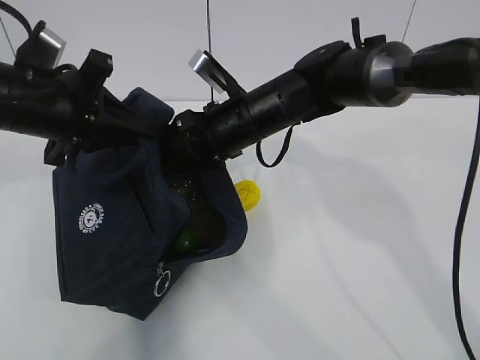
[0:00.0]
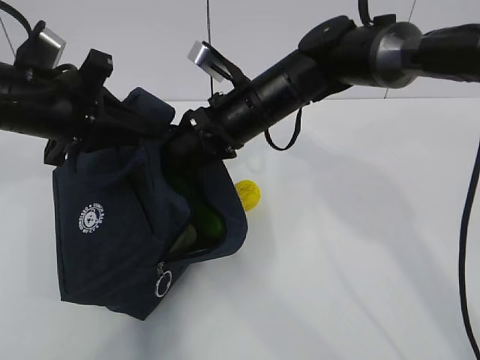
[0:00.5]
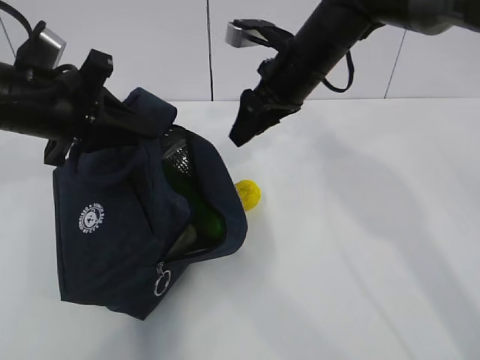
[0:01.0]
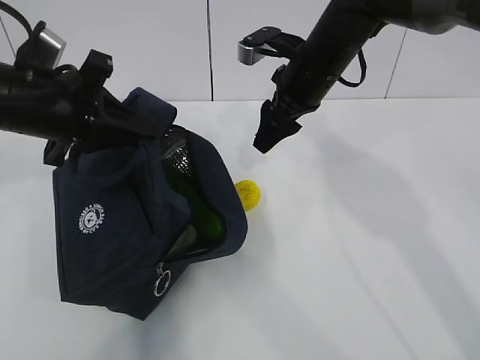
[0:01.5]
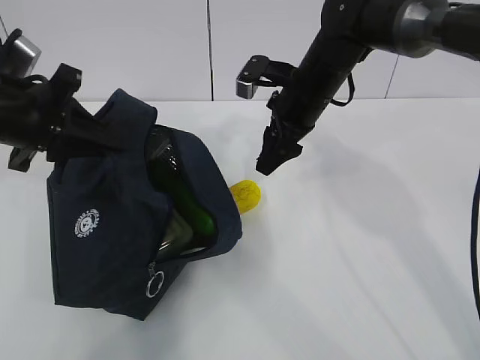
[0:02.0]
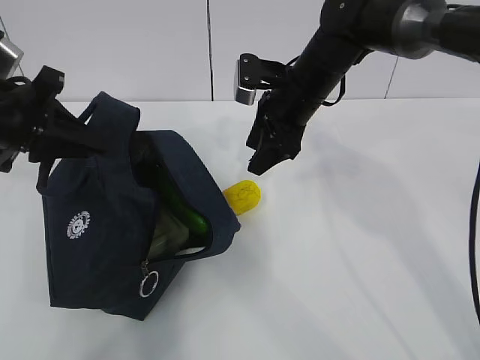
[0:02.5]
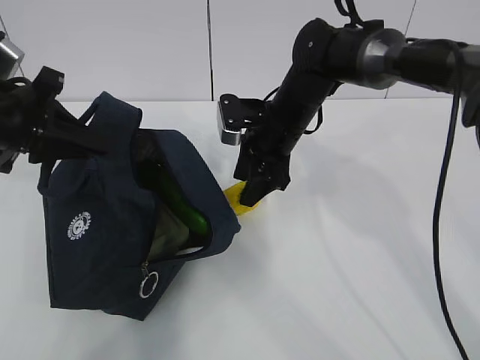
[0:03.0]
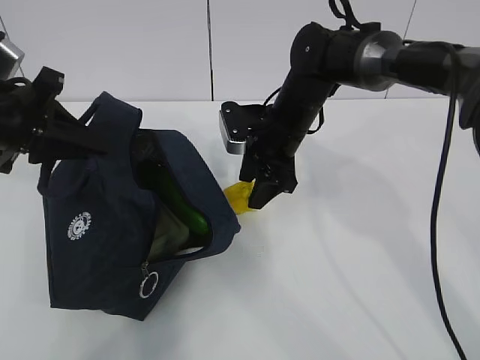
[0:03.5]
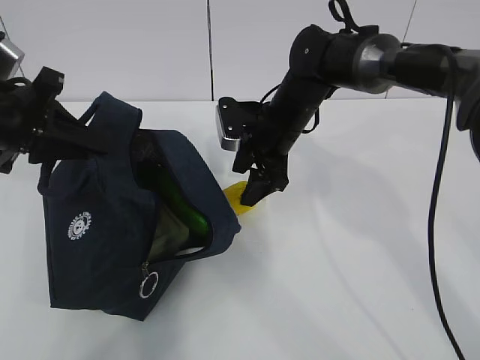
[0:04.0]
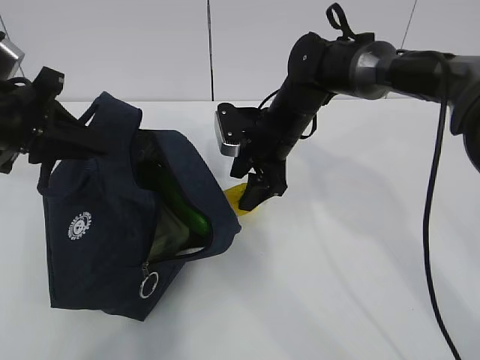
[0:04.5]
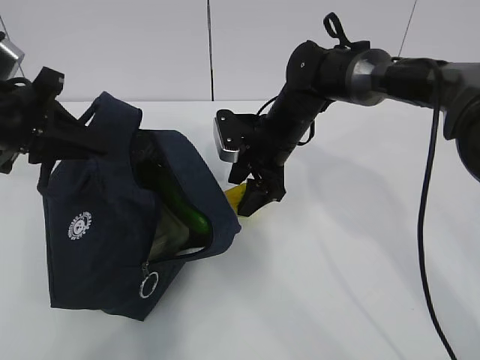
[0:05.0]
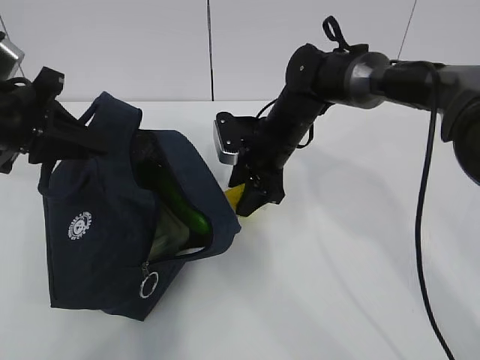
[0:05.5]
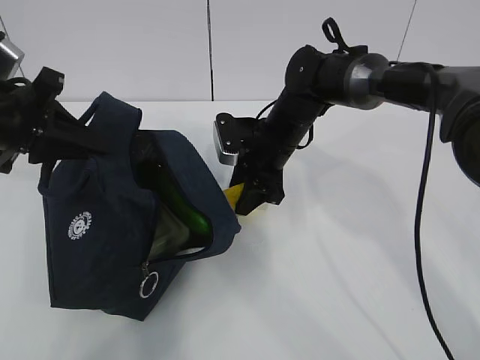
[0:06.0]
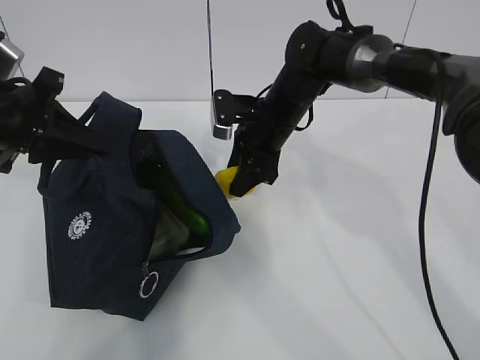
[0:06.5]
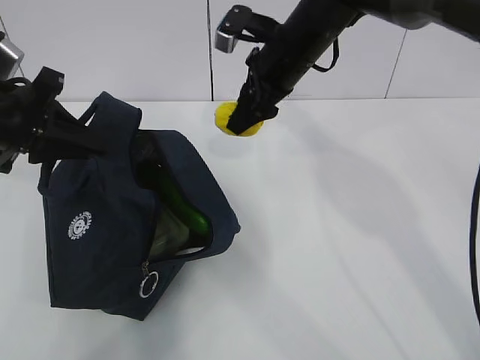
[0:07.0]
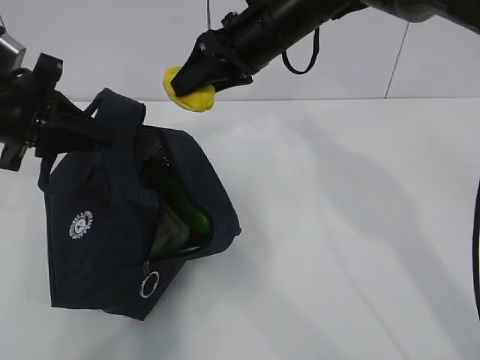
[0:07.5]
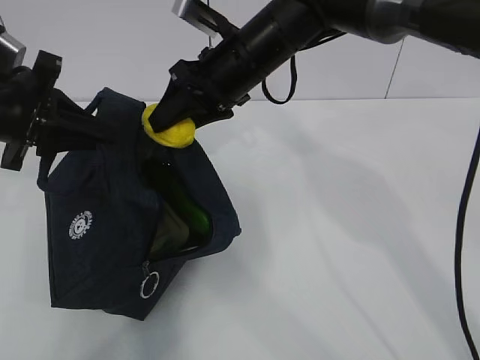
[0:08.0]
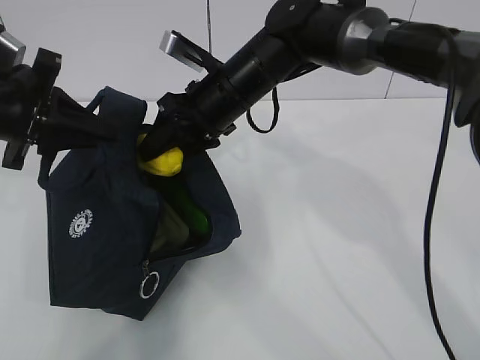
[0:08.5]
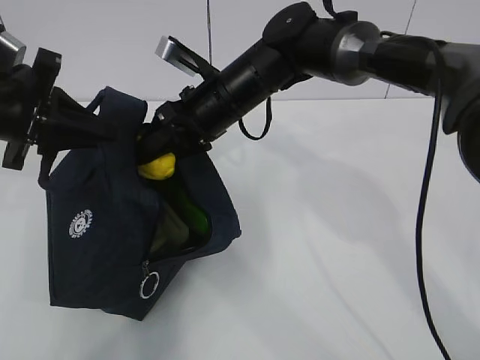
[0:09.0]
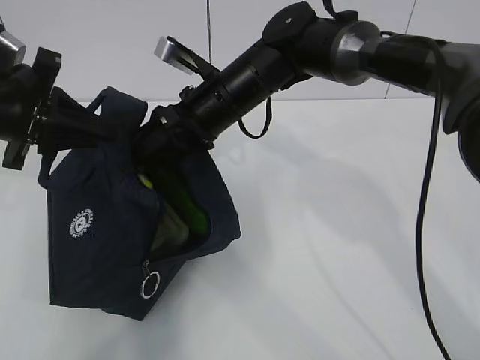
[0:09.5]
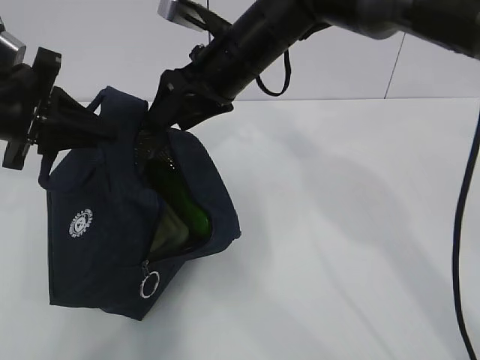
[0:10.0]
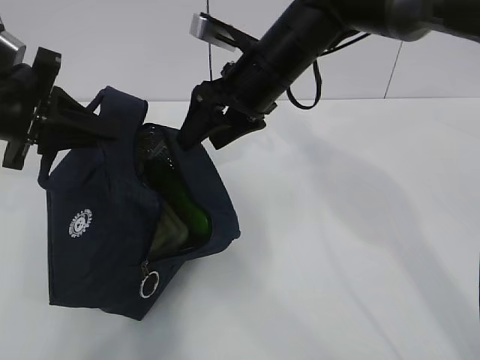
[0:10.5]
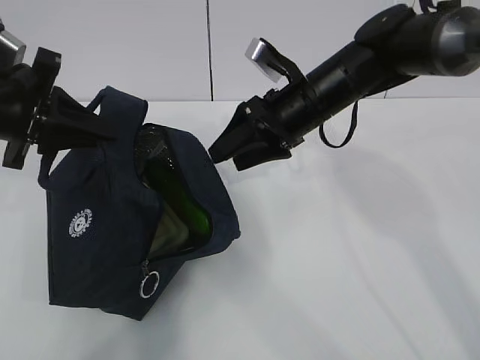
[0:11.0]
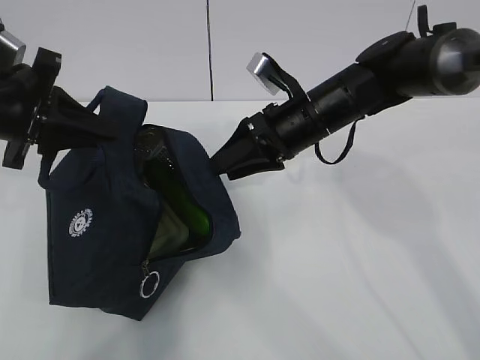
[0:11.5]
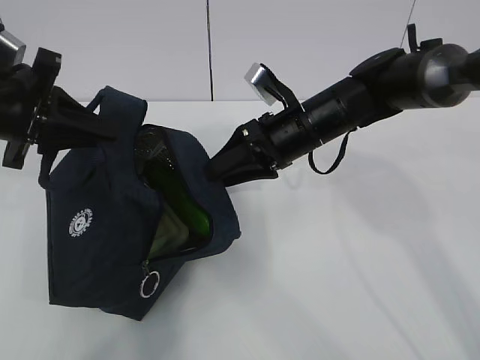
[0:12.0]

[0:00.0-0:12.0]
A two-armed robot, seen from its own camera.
Step, 0.0 to 2.0 s: Secure the lunch bag with your left hand.
Step, 2.5 to 5.0 s: Grab the lunch bag with your right hand.
Step, 5.5 to 9.5 s: Move the lunch bag to the right.
0.0 to 2.0 s: The right gripper travels to the right by some 10 cm.
2.0 to 4.0 s: The right gripper changes place by some 5 cm.
4.0 to 6.0 s: There are only small adjustments of the grippers.
6.0 to 8.0 s: The right gripper goes approximately 15 cm upward.
8.0 to 10.0 s: The grippers stay close to where they were, moving slightly.
10.0 to 12.0 s: The right gripper goes about 10 cm downward and to the right.

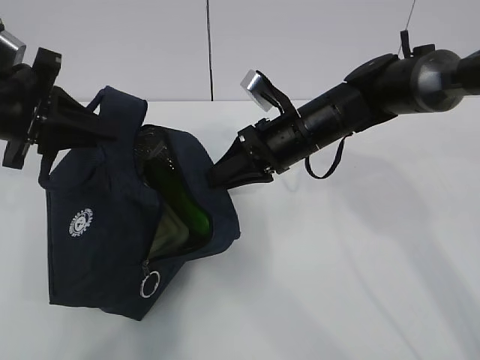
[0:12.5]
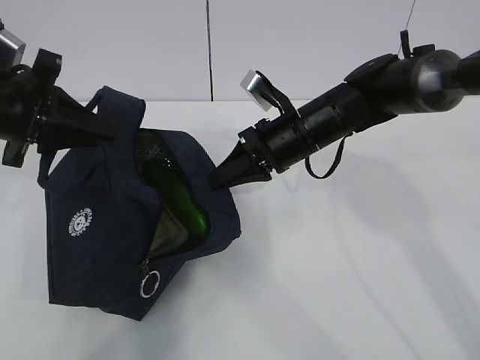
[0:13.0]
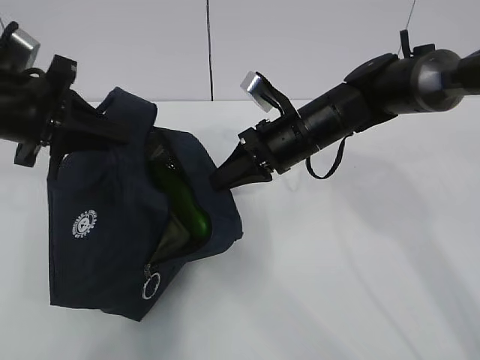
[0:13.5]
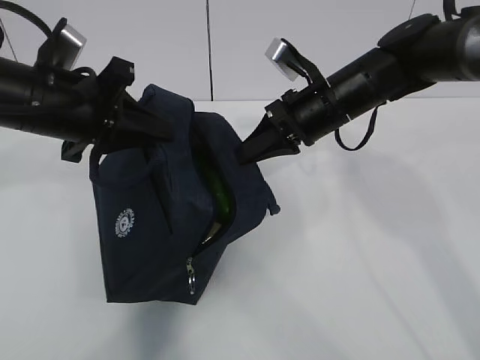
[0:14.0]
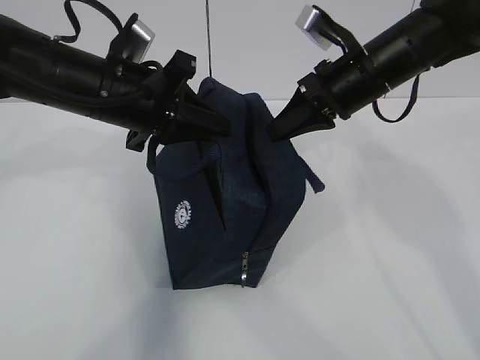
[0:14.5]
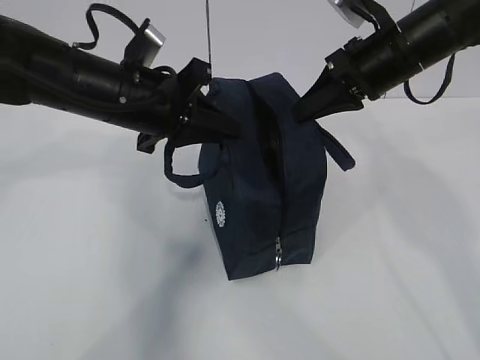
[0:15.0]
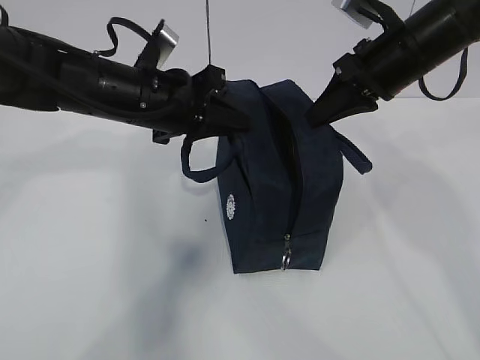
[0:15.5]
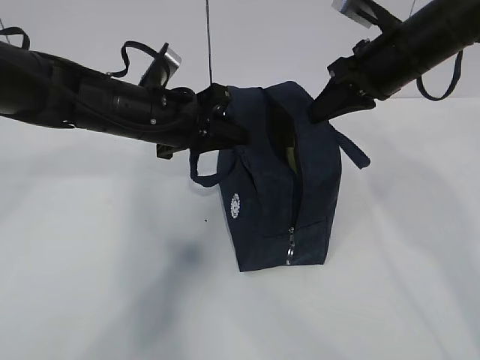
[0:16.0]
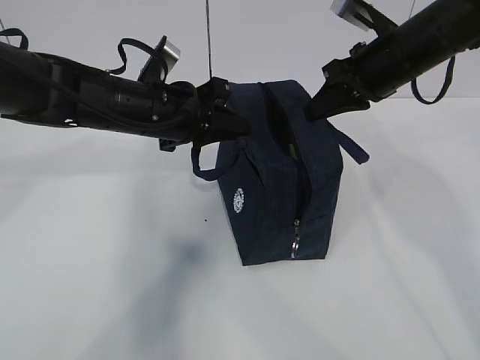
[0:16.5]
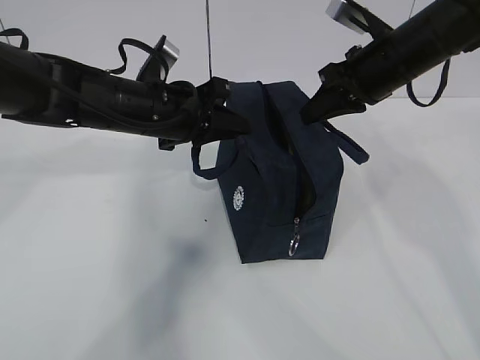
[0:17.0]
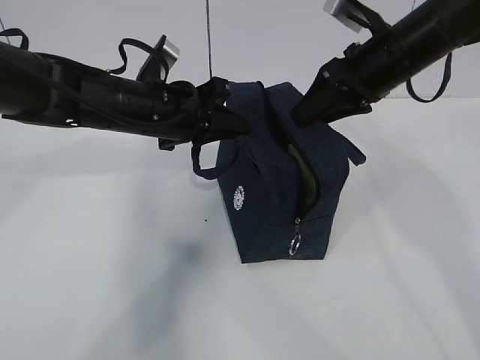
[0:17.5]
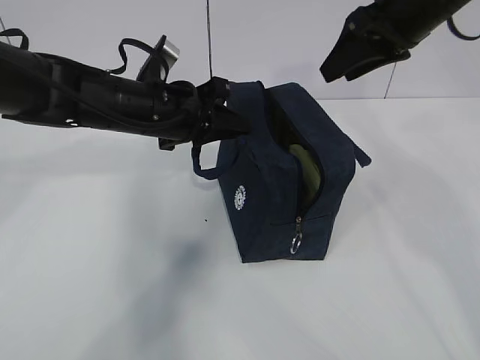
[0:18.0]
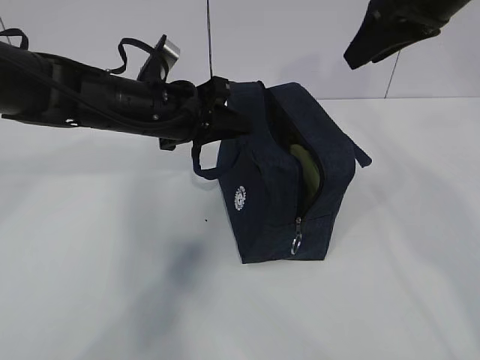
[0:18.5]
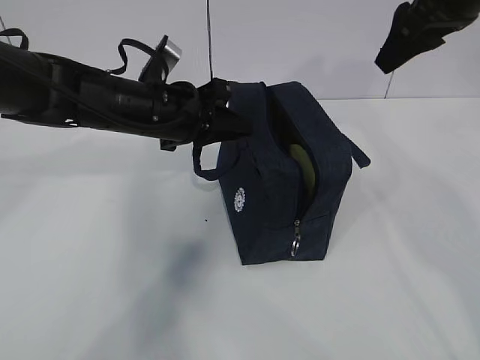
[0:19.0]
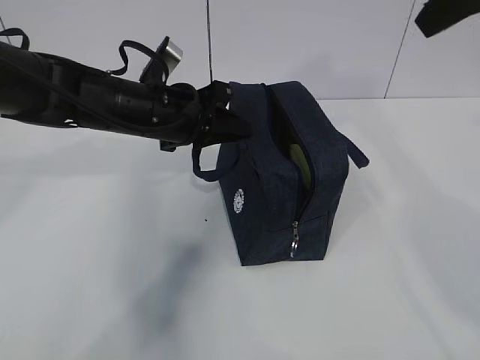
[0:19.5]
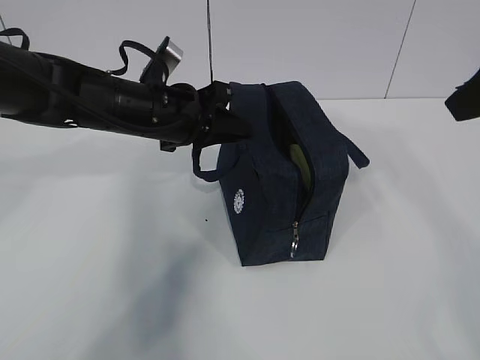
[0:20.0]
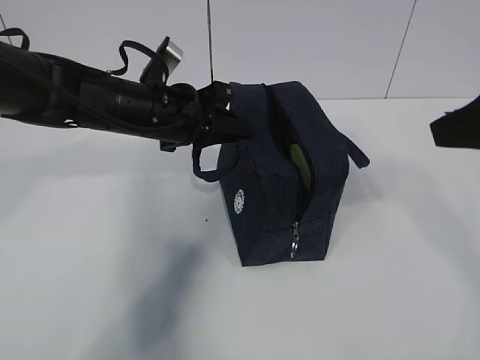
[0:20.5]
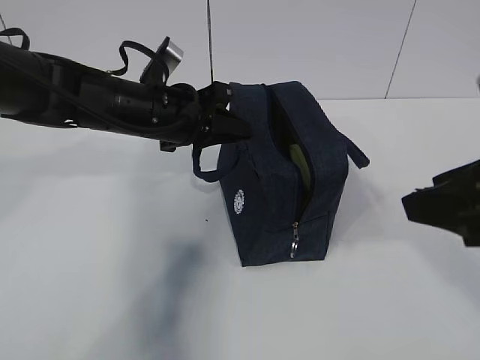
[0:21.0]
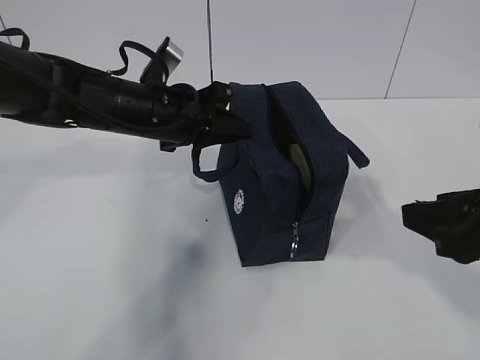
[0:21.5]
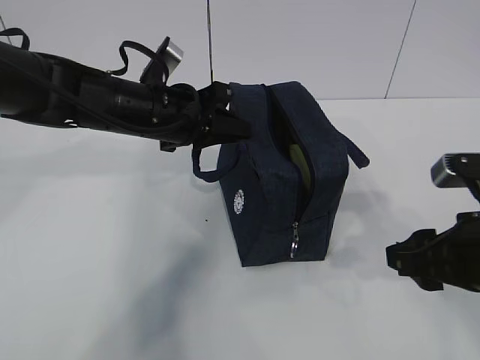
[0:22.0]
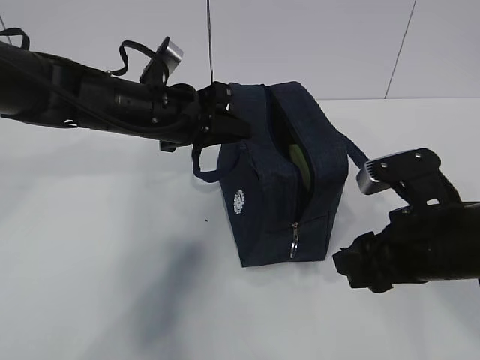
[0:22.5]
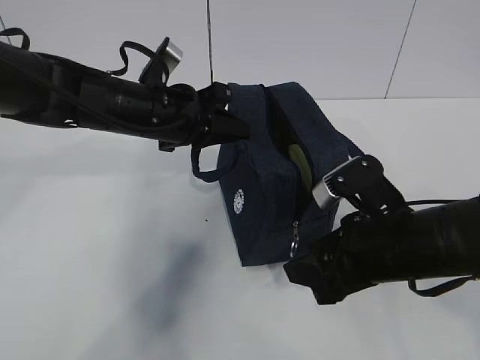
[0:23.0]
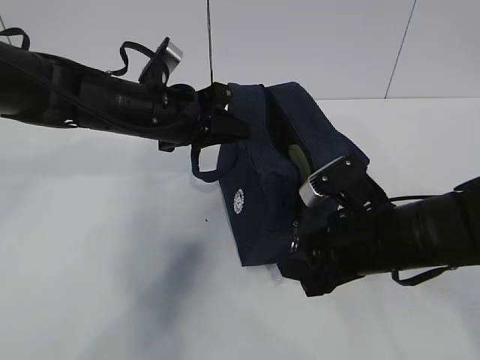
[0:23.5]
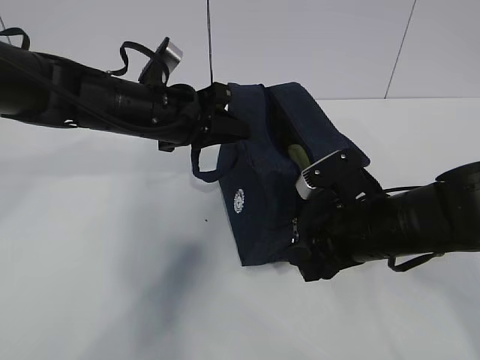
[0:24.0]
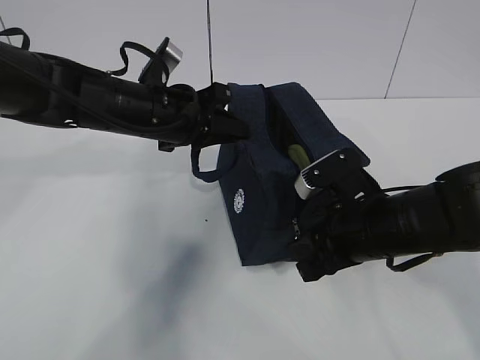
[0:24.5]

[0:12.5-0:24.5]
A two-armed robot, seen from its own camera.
12.5 to 14.5 s: The left gripper moves to the right, about 10 cm; the right gripper moves upward and to the right, about 10 cm, and closes.
14.5 to 16.5 s: The left gripper moves some 5 cm.
16.5 to 18.5 s: The right gripper is displaced upward by about 10 cm, and opens.
18.5 to 20.5 s: The right gripper moves backward, about 15 cm.
20.5 to 22.5 s: The right gripper goes about 15 cm downward.
22.5 to 24.5 s: The right gripper shifts by approximately 5 cm.

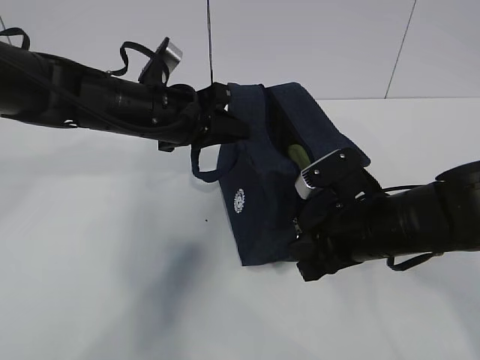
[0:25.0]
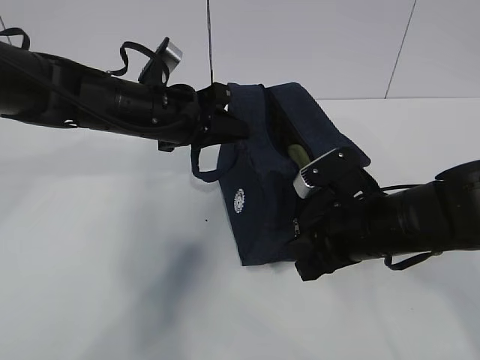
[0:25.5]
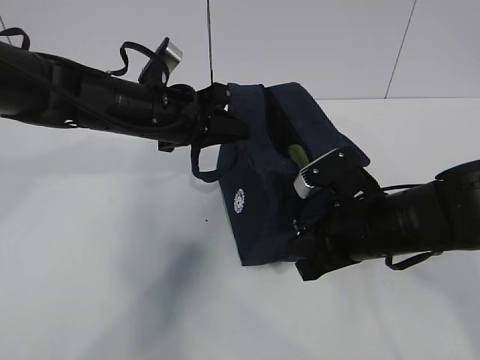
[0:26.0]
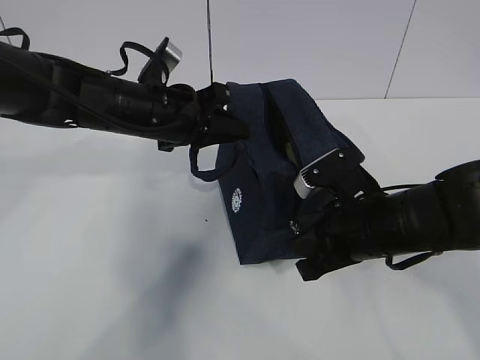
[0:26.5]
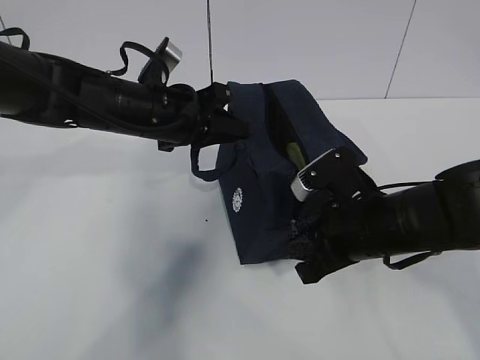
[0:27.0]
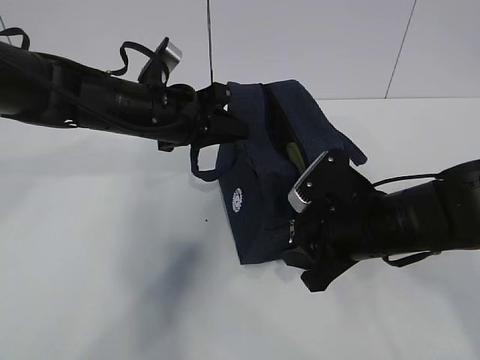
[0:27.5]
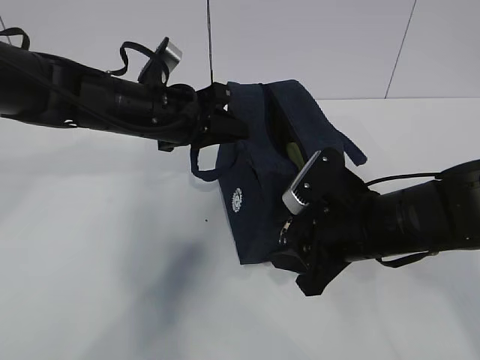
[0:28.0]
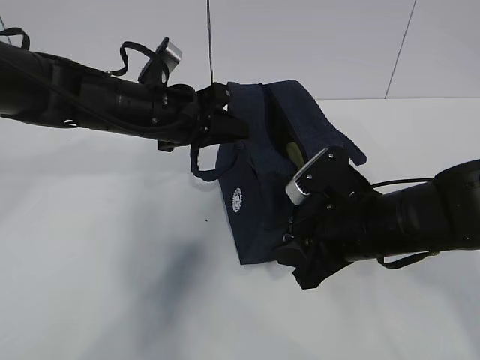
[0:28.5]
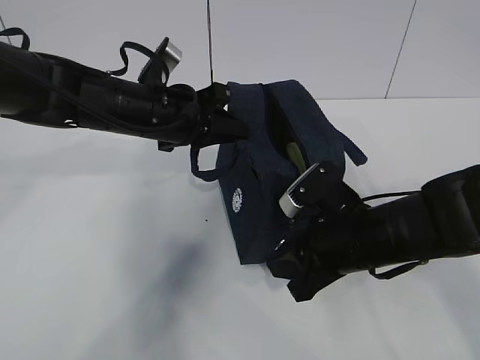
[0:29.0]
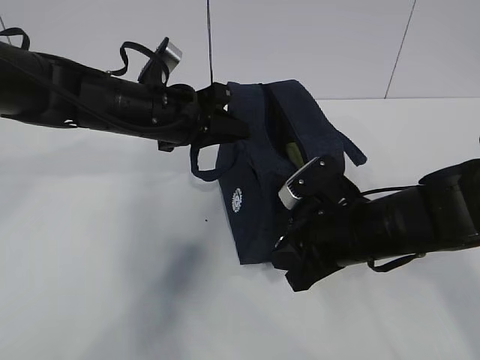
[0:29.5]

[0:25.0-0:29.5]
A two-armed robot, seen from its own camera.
25.0 to 27.0 s: Neither gripper changes place.
27.0 to 29.5 s: The grippers stay close to where they were, moving slightly.
